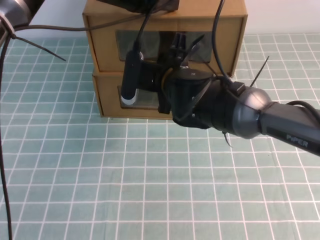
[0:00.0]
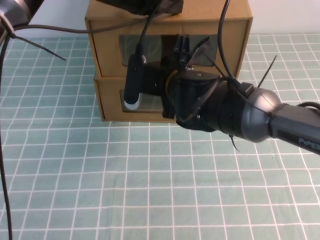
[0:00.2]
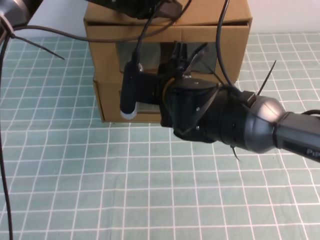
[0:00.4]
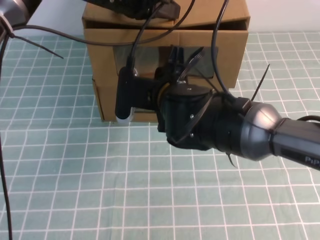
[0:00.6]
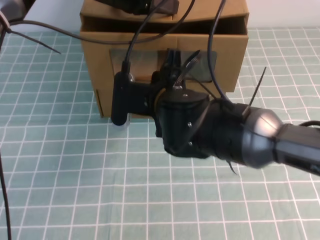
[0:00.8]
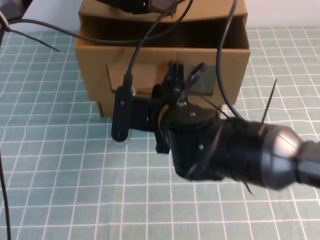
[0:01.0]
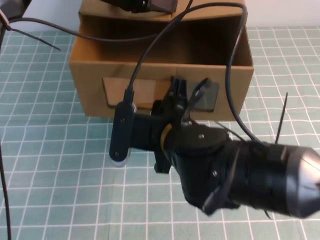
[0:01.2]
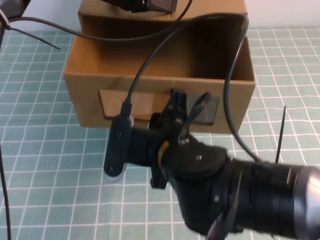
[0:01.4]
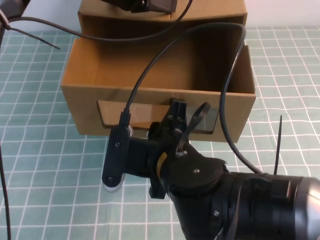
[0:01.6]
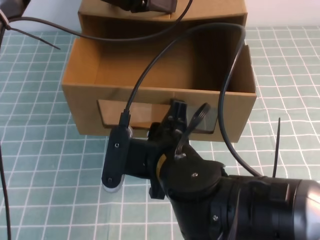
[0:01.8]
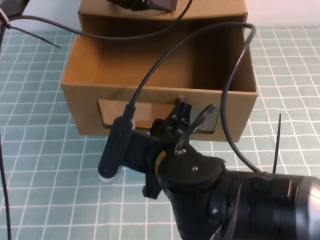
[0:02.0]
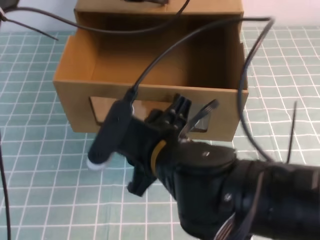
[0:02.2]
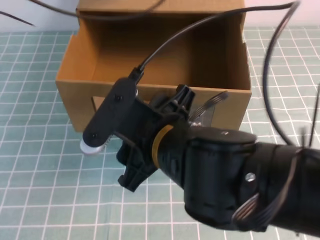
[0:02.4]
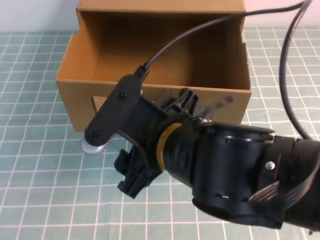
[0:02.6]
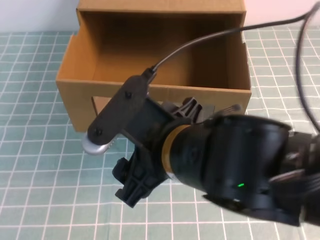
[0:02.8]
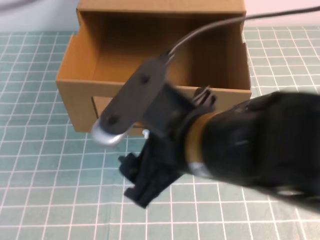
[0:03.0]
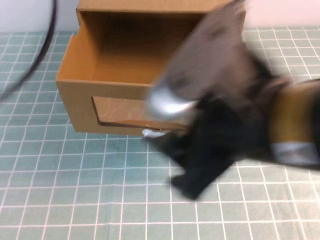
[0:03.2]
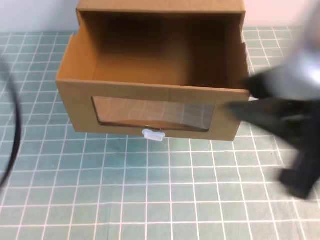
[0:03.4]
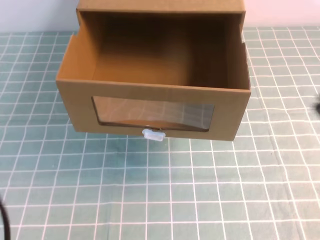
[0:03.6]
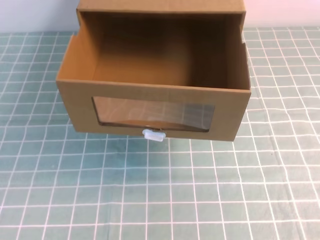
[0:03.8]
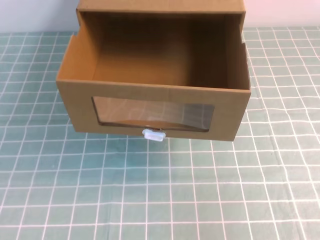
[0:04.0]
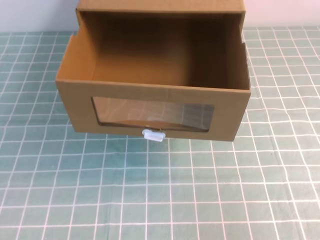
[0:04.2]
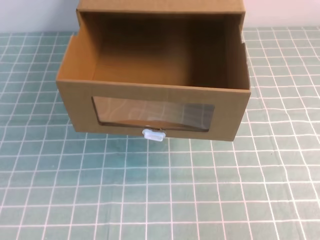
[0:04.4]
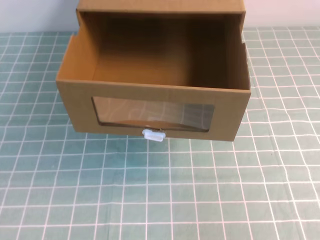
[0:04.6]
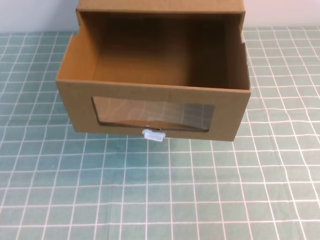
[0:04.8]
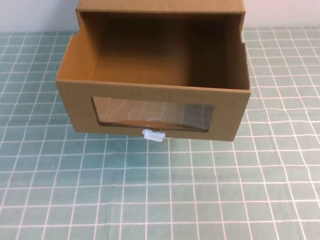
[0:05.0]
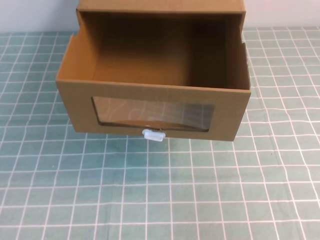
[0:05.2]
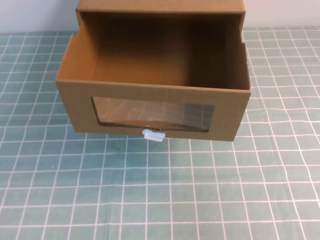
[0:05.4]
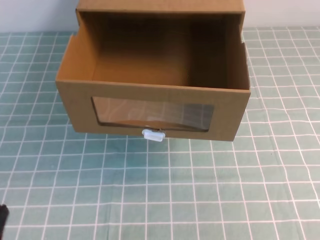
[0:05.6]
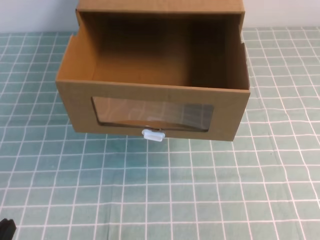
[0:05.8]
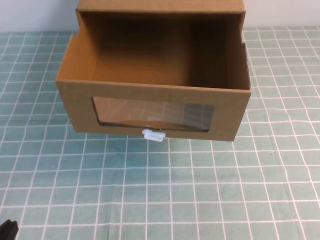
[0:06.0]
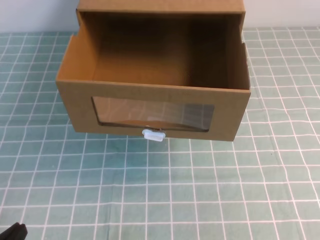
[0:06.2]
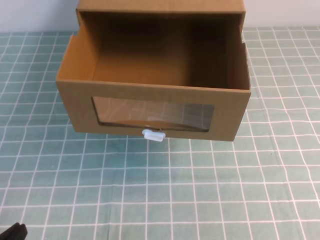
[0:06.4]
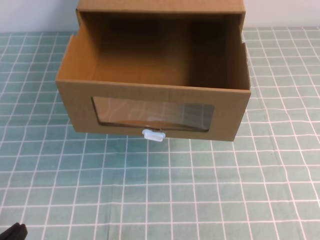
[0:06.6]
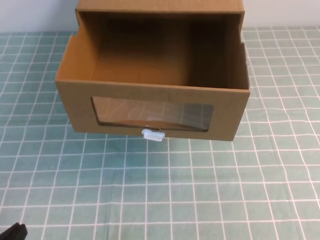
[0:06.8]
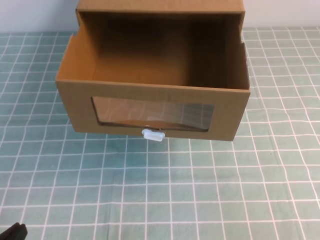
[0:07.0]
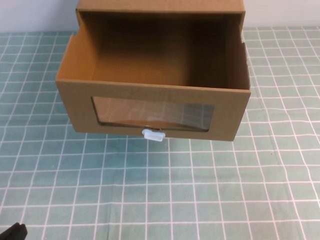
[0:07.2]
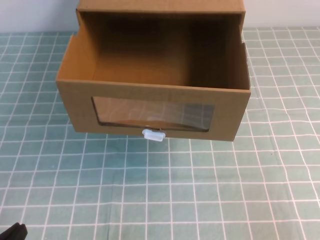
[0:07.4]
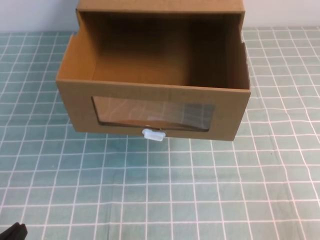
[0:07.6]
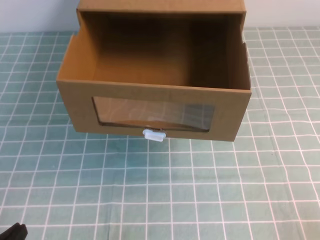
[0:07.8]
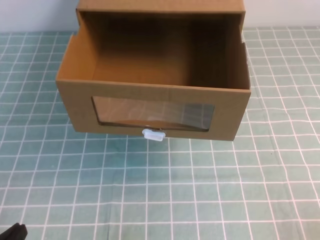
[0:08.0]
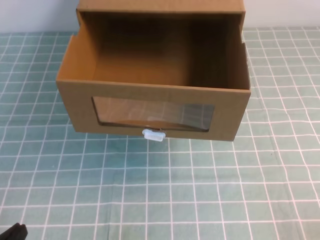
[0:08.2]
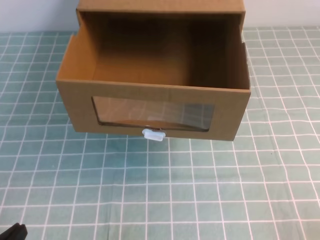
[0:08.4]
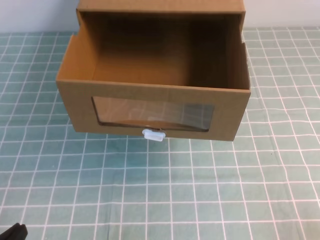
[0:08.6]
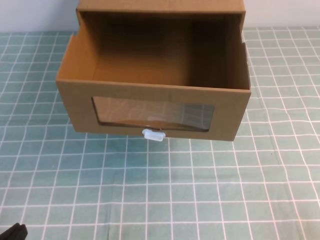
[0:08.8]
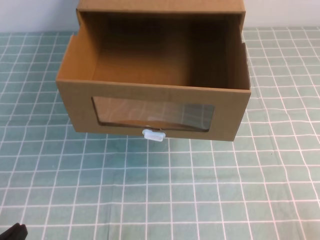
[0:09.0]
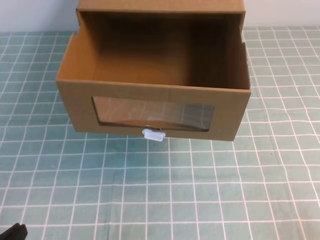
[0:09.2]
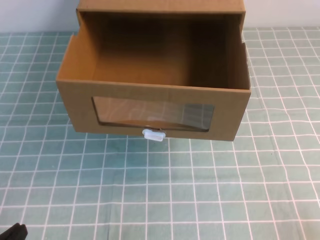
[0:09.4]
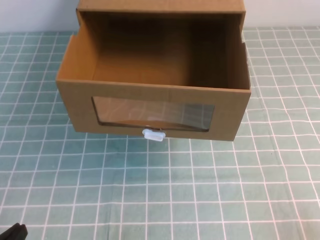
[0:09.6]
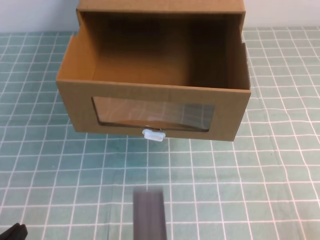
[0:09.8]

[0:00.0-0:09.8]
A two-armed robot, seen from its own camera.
Task of the whole recording: open the shoebox on the cyan tablecloth.
Step, 0:00.0 to 0:09.8: Open the shoe box.
0:00.0 to 0:01.4: The right gripper is displaced backward by roughly 15 cm.
0:01.4 to 0:02.8: The left gripper shifts roughly 25 cm upward, backward and to the left. The right gripper travels upward by roughly 5 cm, and opens its fingers.
0:02.8 to 0:04.2: The right gripper goes approximately 30 cm to the right and backward, and closes its fingers. The left gripper heads backward and downward, covering approximately 40 cm.
0:04.2 to 0:05.6: The left gripper goes some 10 cm downward and forward; the right gripper shifts roughly 5 cm downward.
0:08.4 to 0:09.8: The grippers move only a little.

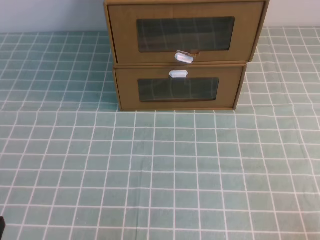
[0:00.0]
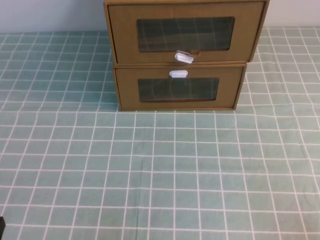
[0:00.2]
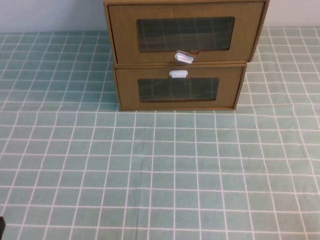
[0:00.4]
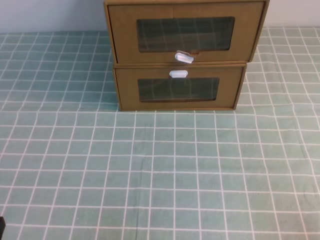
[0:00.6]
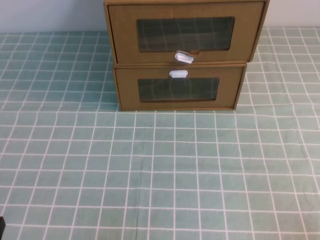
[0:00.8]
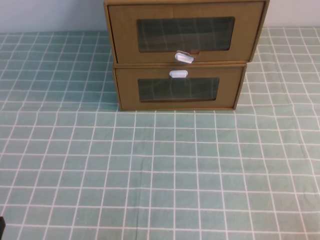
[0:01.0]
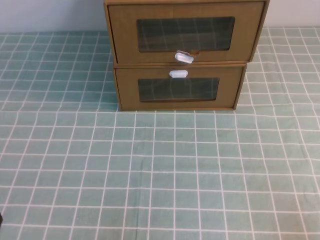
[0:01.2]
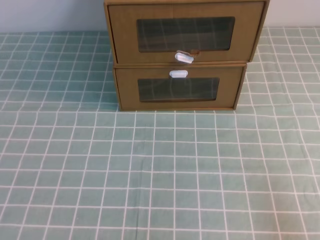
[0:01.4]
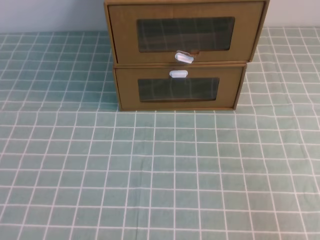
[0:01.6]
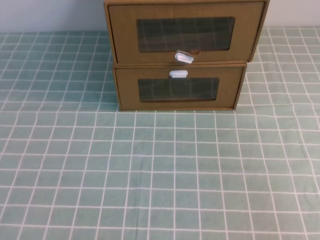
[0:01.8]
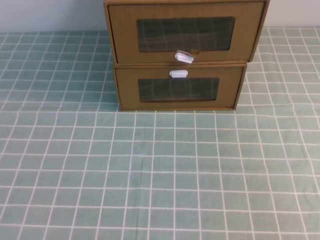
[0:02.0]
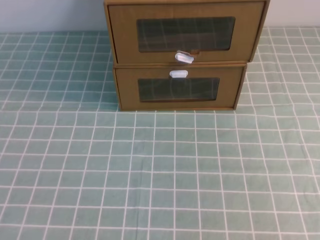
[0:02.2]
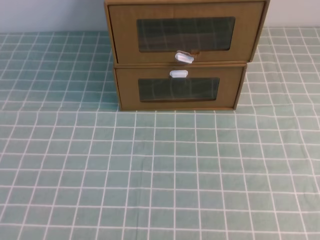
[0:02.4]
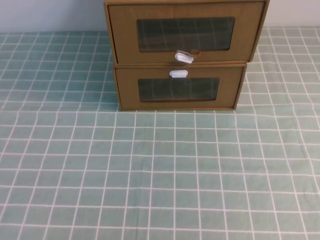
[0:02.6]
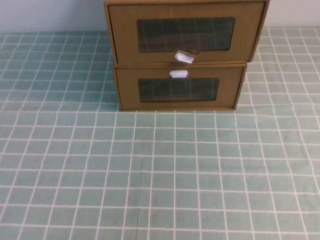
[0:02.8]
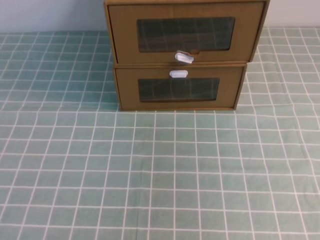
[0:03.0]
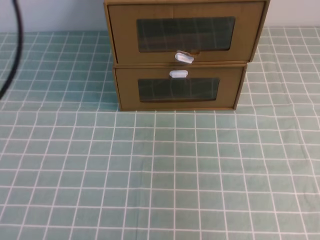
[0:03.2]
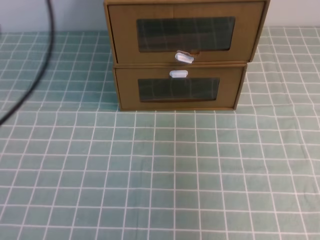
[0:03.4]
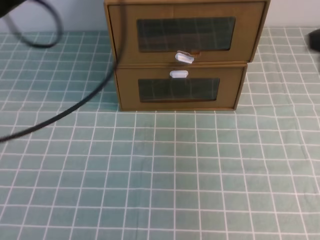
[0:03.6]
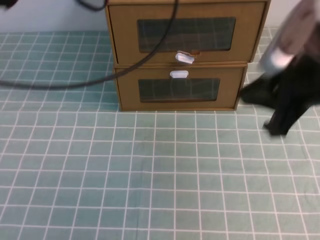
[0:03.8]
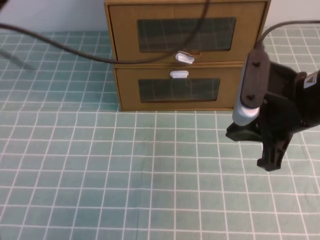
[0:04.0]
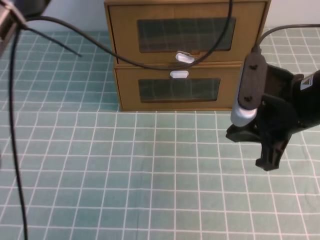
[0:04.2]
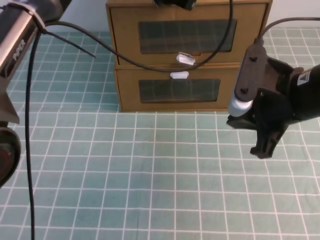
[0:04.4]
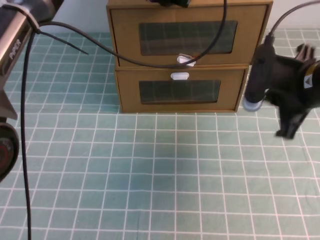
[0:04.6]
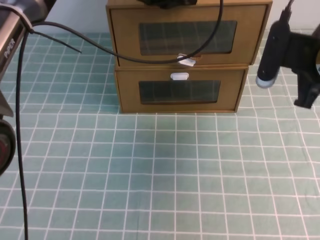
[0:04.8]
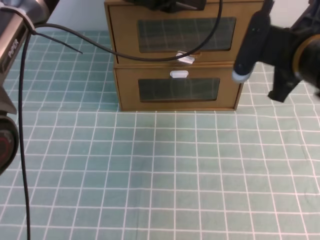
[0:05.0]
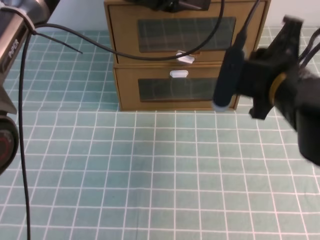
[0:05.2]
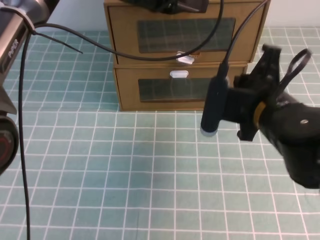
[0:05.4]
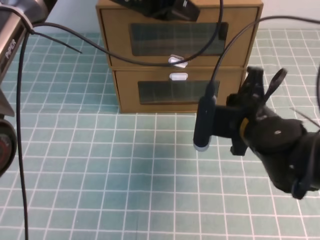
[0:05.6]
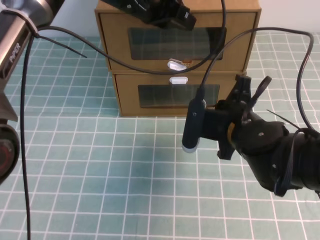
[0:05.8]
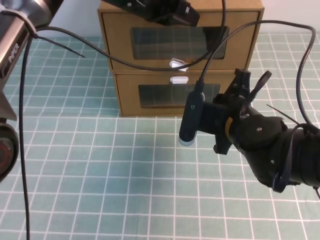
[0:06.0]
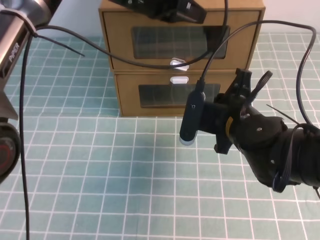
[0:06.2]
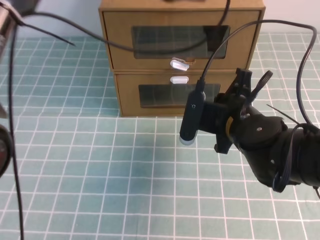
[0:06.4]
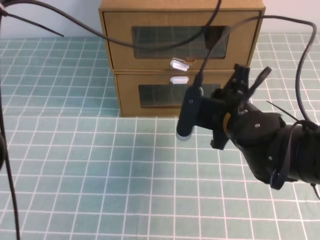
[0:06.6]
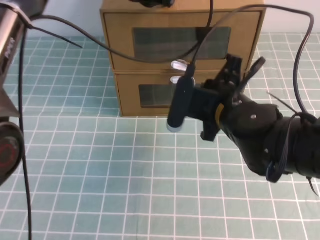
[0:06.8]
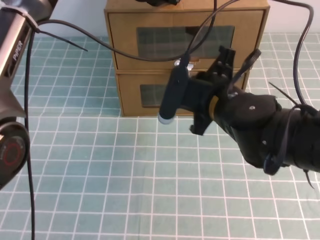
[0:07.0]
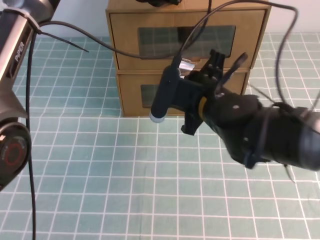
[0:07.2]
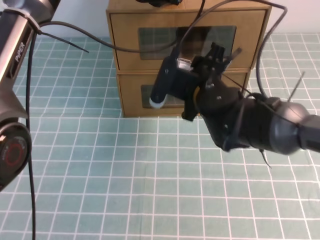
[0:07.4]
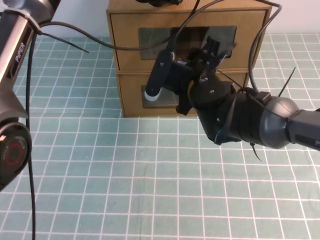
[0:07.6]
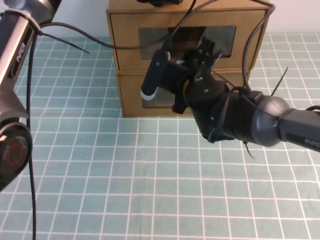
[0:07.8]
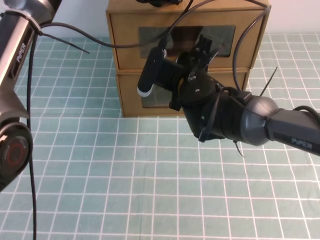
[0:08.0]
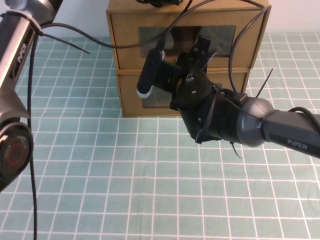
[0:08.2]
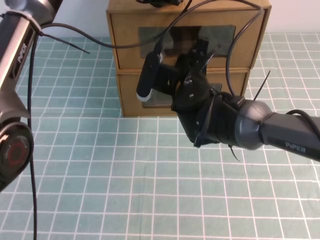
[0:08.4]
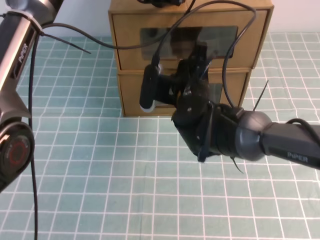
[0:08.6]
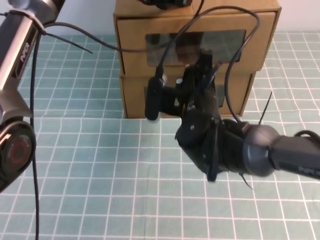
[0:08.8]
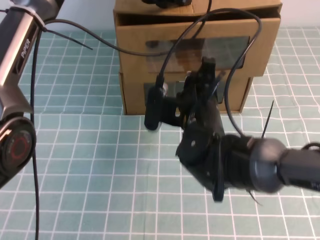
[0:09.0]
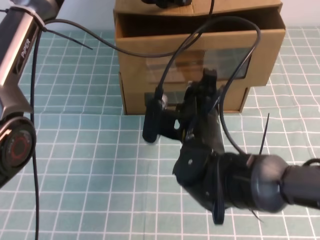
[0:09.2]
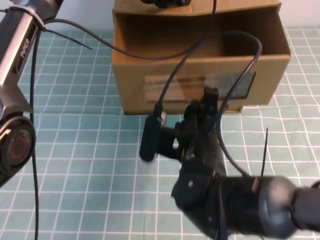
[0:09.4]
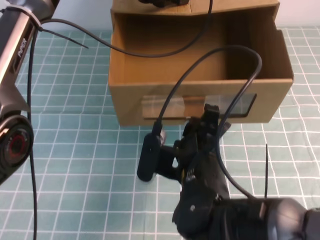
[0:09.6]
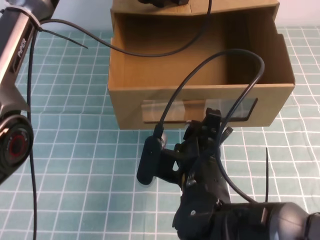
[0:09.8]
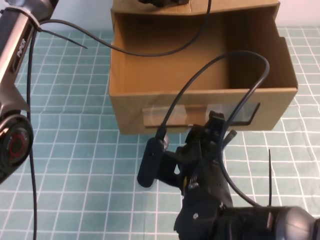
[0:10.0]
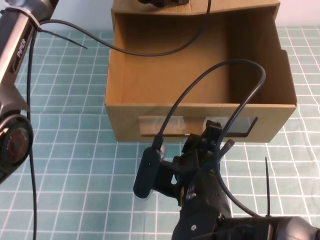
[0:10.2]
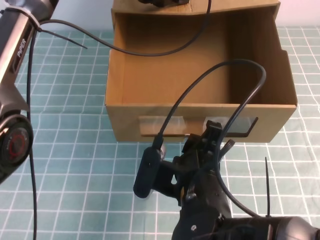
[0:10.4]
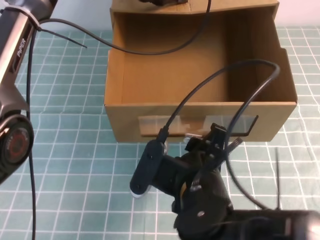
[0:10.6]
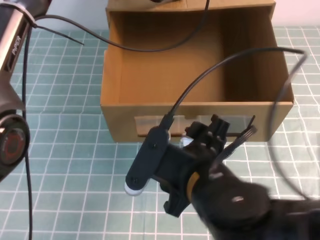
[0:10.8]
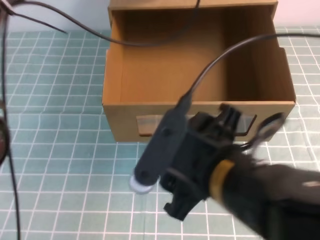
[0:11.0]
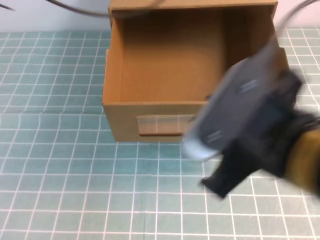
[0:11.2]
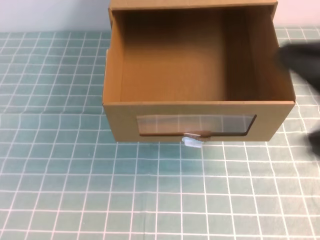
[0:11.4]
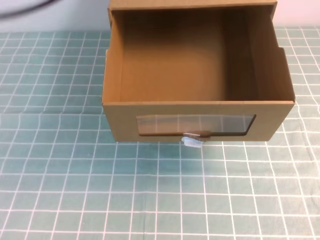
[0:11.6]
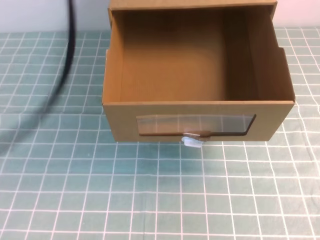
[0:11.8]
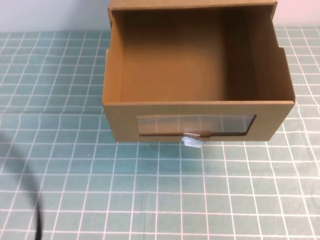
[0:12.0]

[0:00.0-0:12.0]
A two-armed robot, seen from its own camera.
Task of the whole recording: open the shoebox on the cyan tablecloth.
0:03.0 to 0:04.4: The left gripper shifts about 35 cm forward and to the right. Meanwhile the right gripper goes approximately 30 cm downward, forward and to the left.
0:04.4 to 0:06.0: The right gripper moves downward and to the left, approximately 10 cm.
0:06.0 to 0:07.6: The right gripper shifts roughly 10 cm forward and to the left, and opens its fingers.
0:07.6 to 0:09.0: The right gripper goes approximately 5 cm backward, and closes its fingers.
0:09.0 to 0:10.4: The right gripper travels backward by roughly 10 cm.
0:10.4 to 0:12.0: The right gripper is displaced to the right, upward and backward by some 30 cm, and closes up; the left gripper travels backward and to the left by roughly 40 cm.
